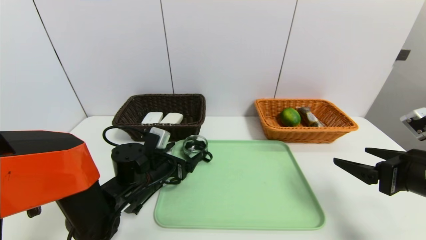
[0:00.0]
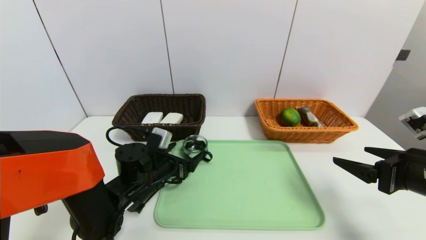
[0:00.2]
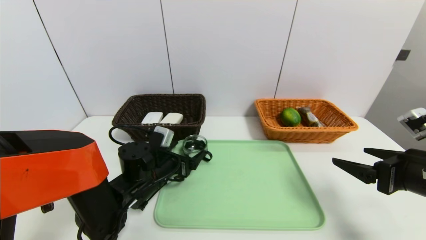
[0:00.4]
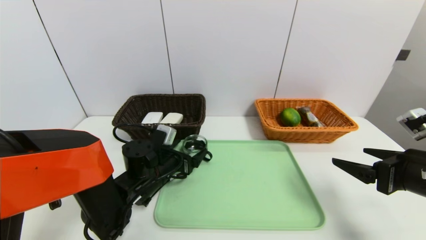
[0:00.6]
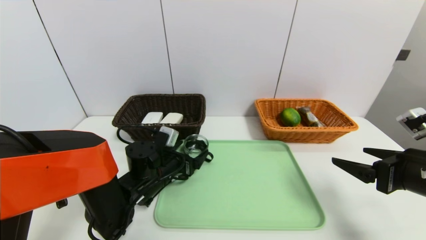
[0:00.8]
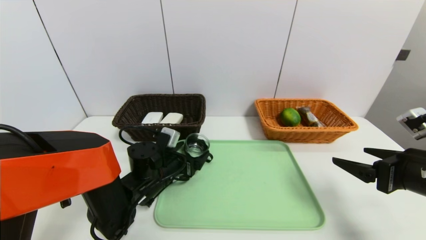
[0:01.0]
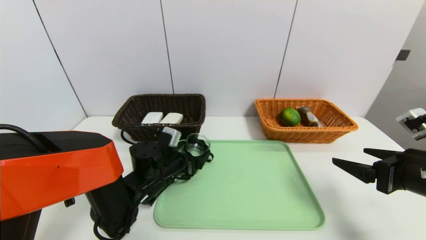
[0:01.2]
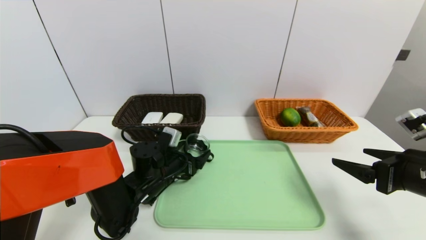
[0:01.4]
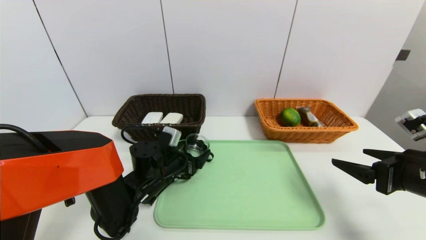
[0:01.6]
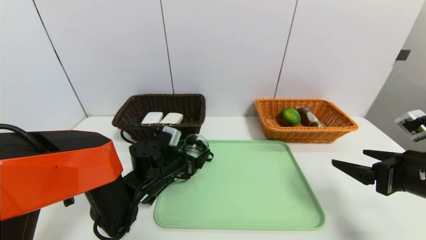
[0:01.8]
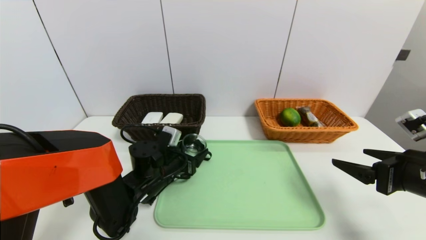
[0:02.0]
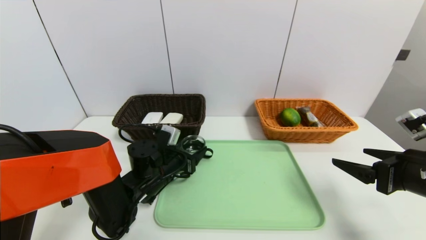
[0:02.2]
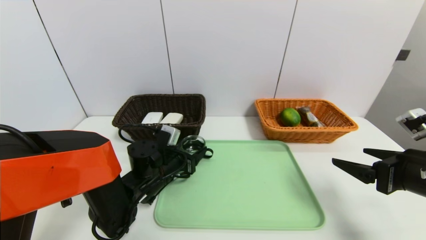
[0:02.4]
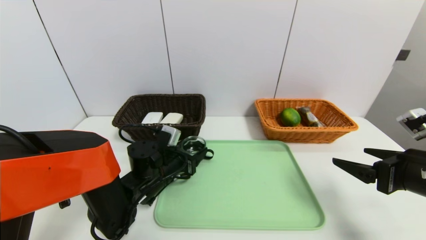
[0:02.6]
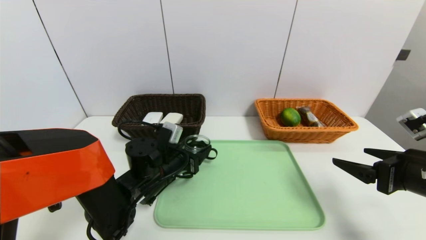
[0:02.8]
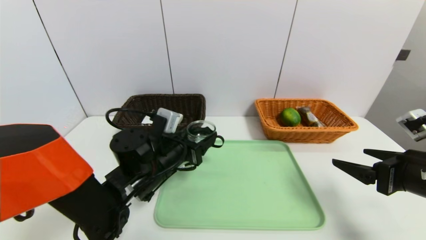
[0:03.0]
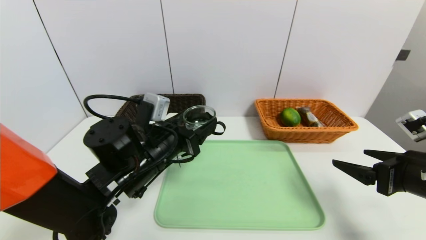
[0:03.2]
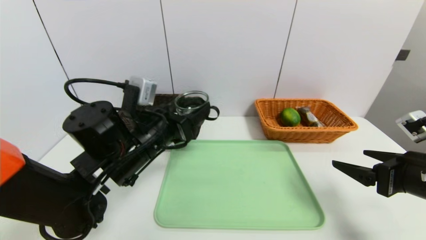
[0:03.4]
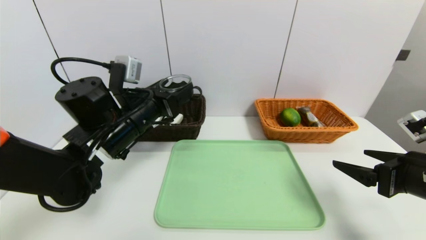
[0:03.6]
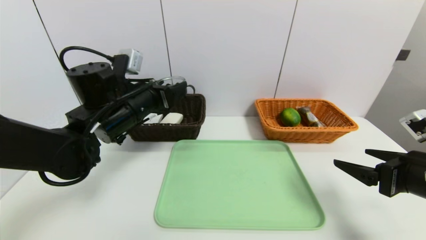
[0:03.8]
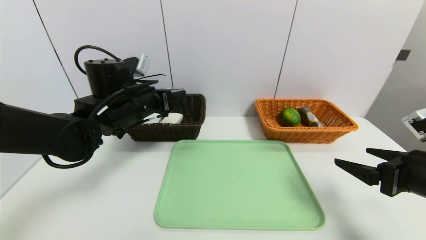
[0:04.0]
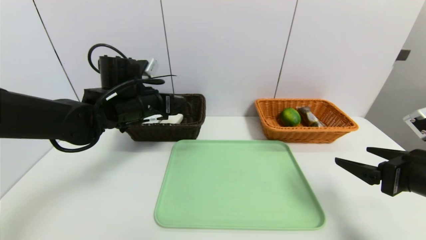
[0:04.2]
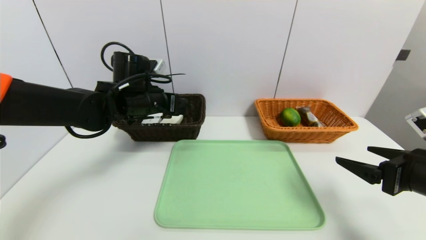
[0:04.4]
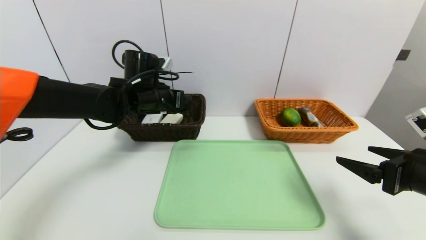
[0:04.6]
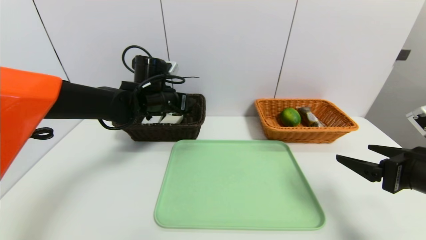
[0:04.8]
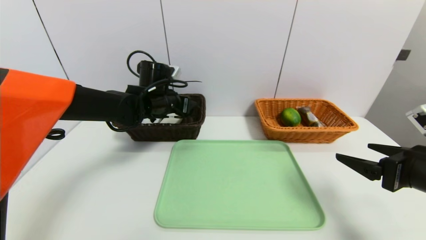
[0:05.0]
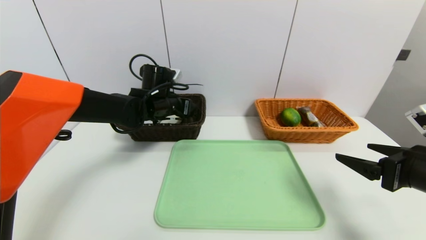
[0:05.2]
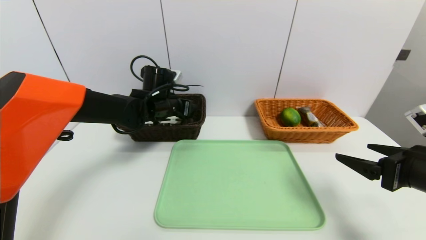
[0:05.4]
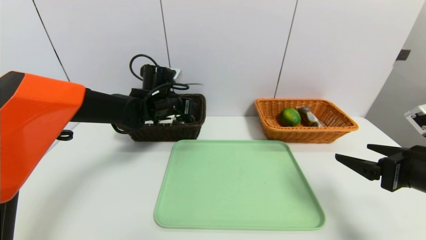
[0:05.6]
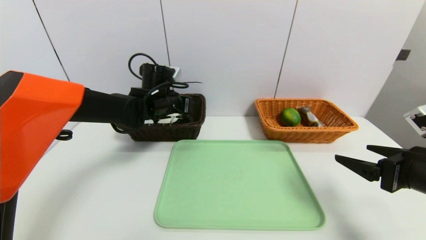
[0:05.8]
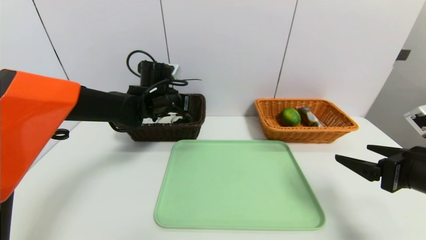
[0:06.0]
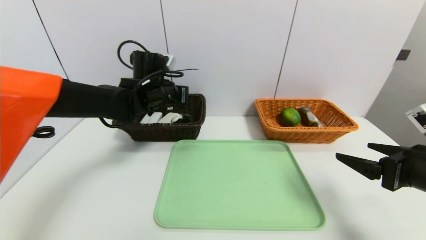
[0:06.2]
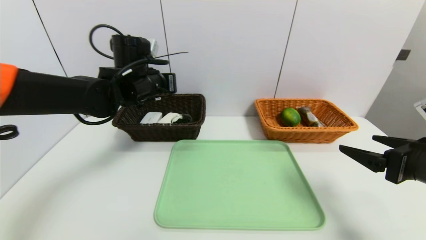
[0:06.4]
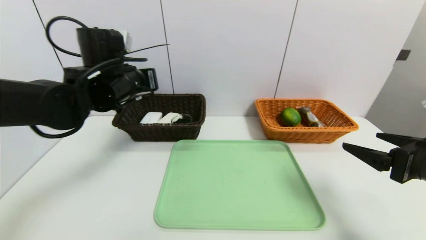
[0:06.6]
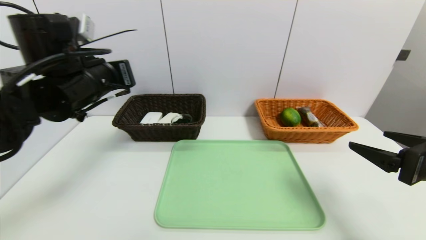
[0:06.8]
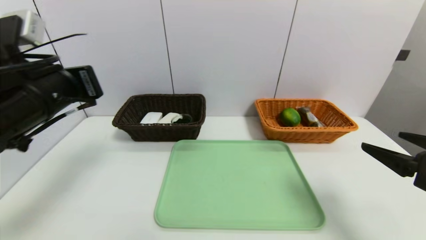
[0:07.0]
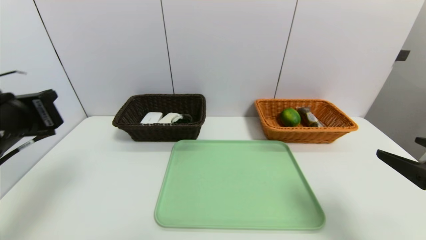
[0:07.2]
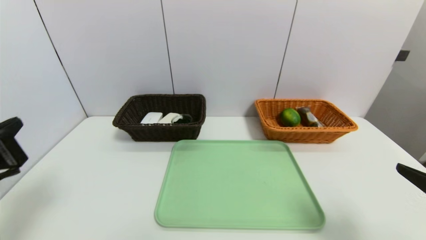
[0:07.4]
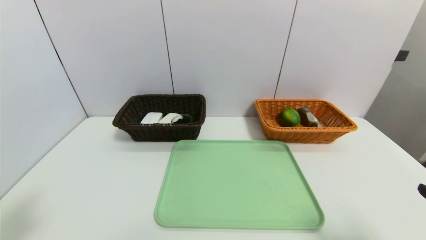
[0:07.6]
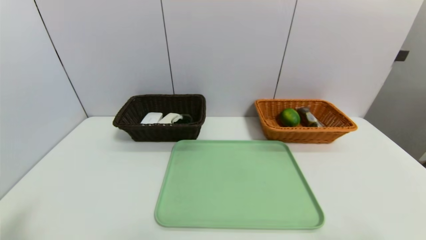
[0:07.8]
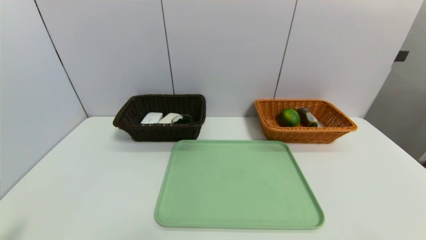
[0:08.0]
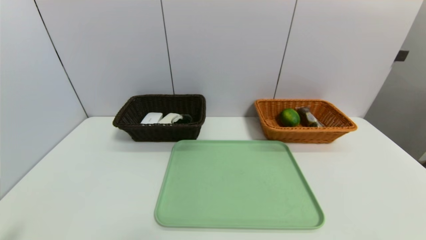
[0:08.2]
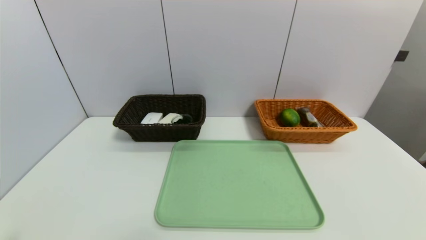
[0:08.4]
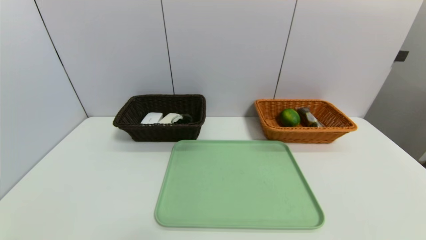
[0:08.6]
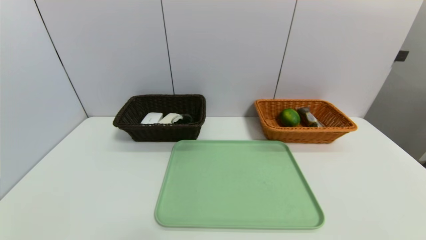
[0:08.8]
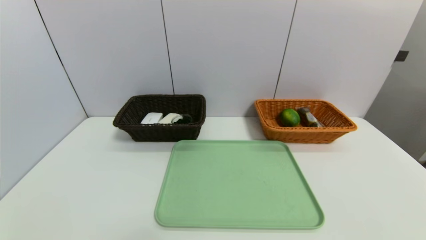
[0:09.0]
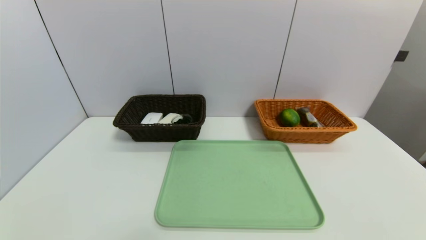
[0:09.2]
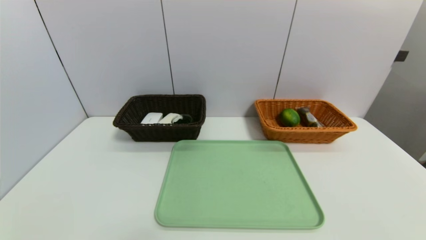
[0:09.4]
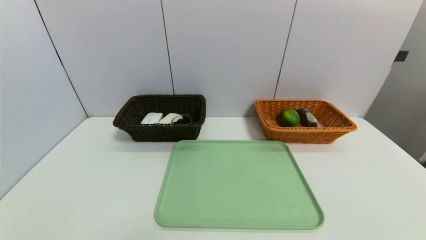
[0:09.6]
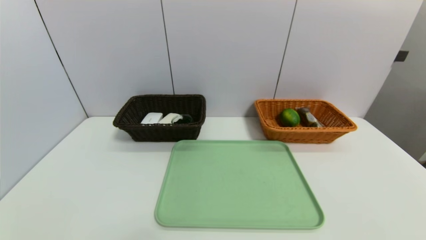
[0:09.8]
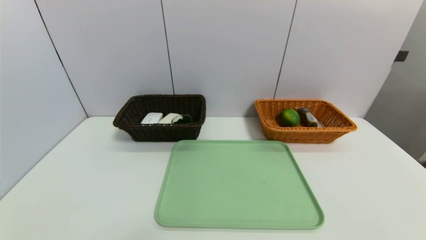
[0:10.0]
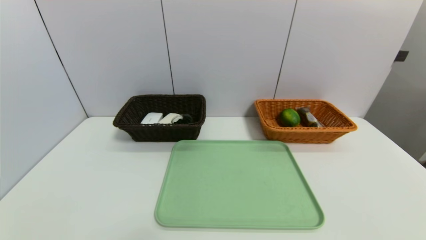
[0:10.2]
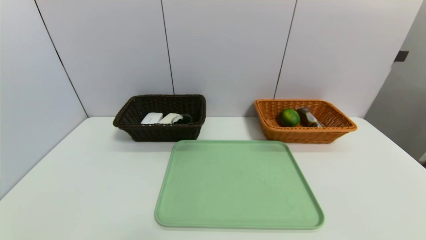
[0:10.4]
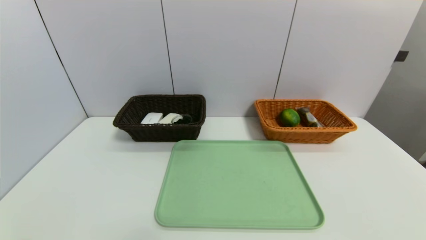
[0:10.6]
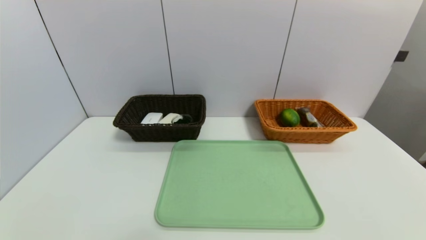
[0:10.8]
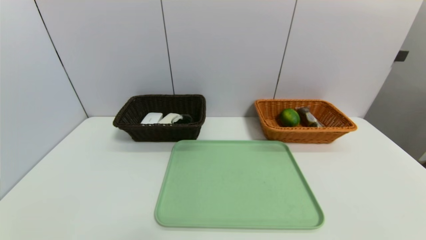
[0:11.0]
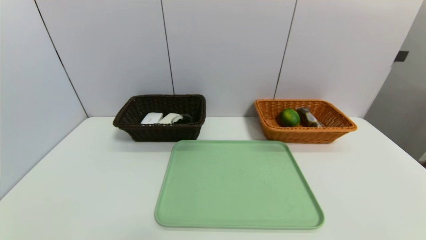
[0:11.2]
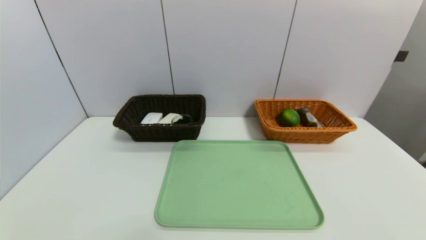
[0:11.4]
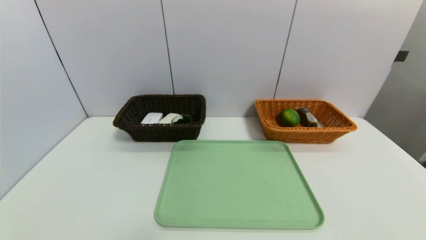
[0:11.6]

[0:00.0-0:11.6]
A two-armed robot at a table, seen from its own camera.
Task of the whole recording: place the food in the right basket with the right gripper, and place the non food items in the left basket with the left gripper.
Step, 0:00.0 to 0:06.2: Grasp the black glass cup and put it in the left basket.
0:00.0 to 0:02.8: The grippers stay close to where they were, moving slightly.
0:02.8 to 0:04.4: The left gripper shifts some 15 cm upward and forward.
0:04.4 to 0:05.8: The left gripper goes roughly 5 cm forward.
0:05.8 to 0:07.2: The right gripper heads backward, covering approximately 5 cm; the left gripper moves backward and to the left, approximately 30 cm, and closes up.
0:07.2 to 0:08.8: The grippers both shift backward and downward by roughly 20 cm.

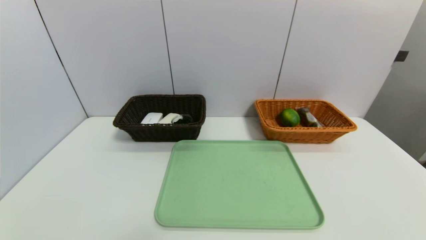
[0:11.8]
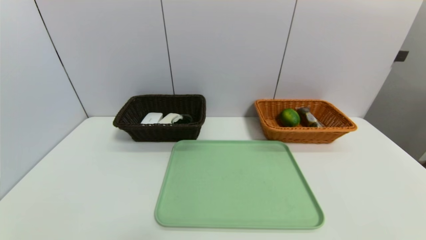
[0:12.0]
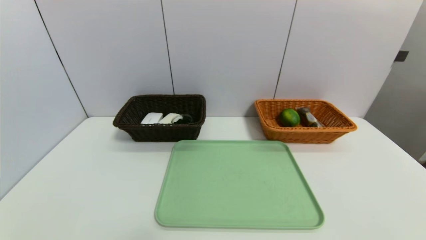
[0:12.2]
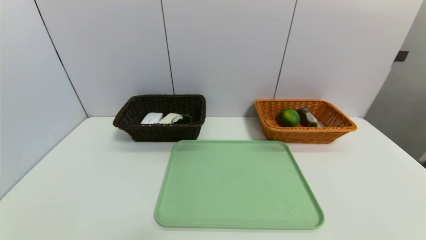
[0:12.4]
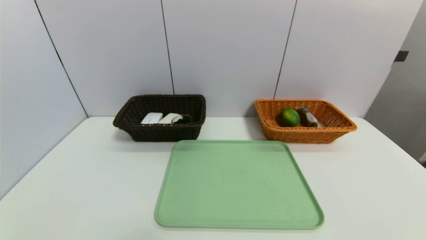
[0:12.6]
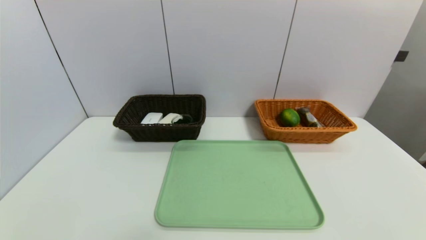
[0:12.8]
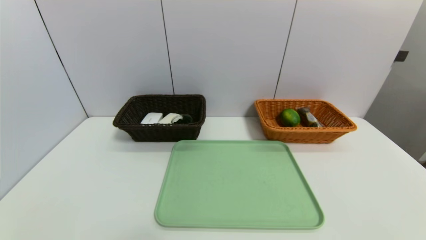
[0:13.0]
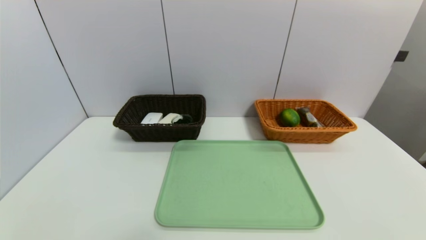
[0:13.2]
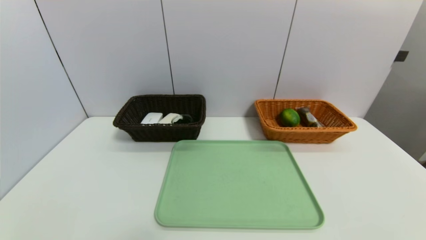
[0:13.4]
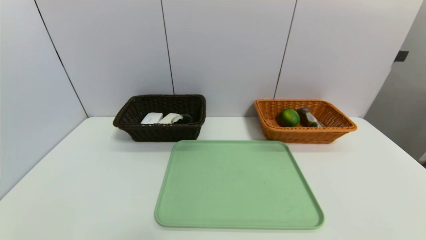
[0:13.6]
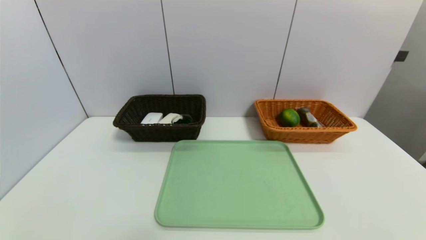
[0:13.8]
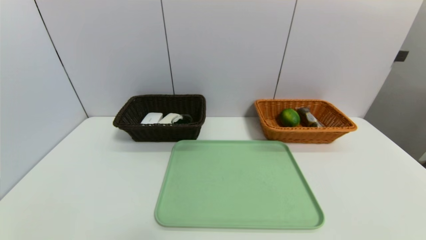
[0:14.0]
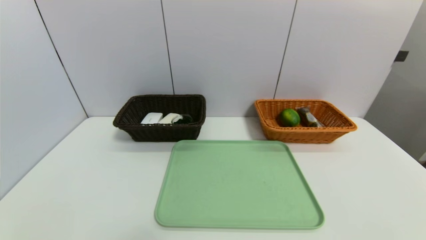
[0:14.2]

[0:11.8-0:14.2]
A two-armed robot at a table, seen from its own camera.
Task of the whole recording: place the food in the right basket with the right gripper, and place the non food items in the left basket with the left gripper.
0:11.8 to 0:14.2: Both grippers stay about where they are.
